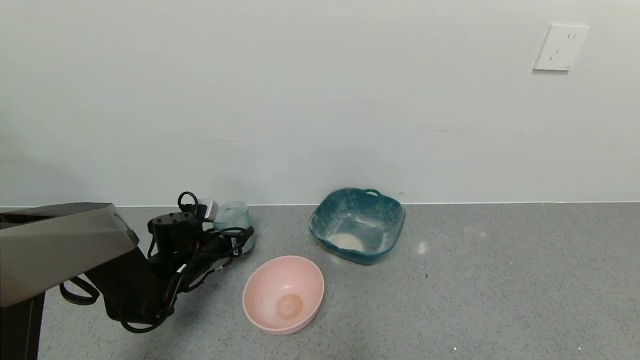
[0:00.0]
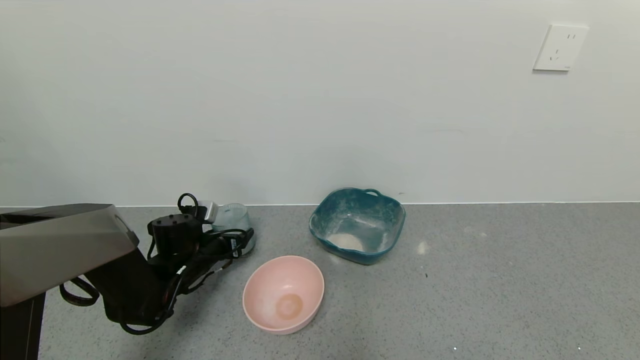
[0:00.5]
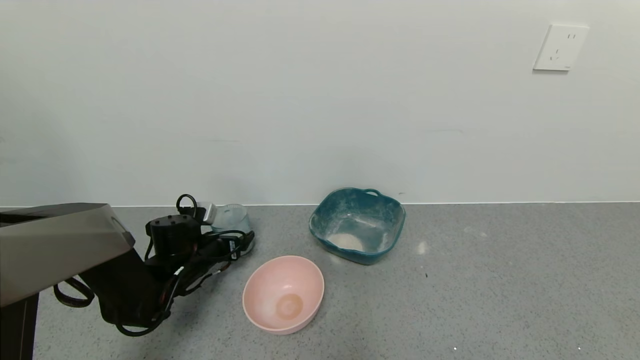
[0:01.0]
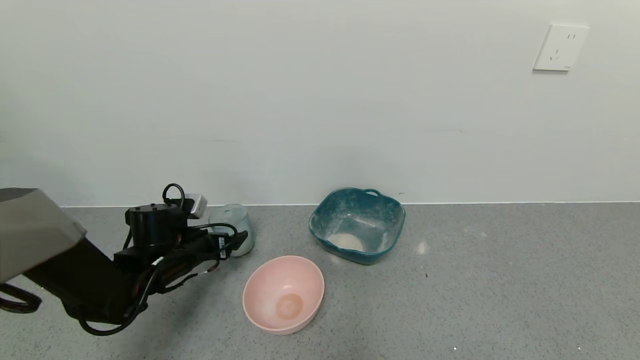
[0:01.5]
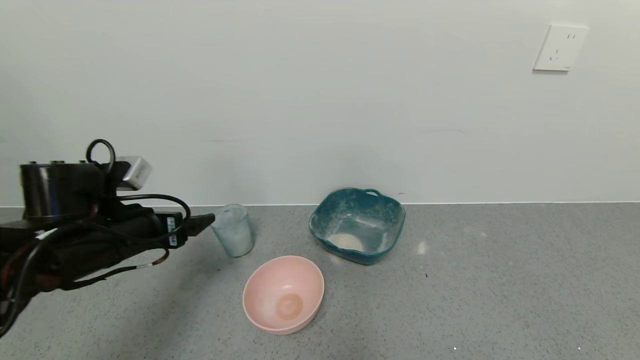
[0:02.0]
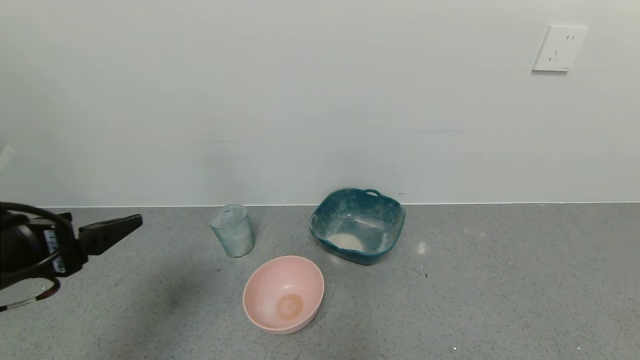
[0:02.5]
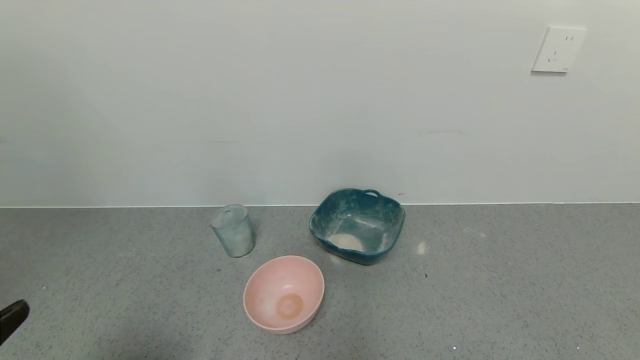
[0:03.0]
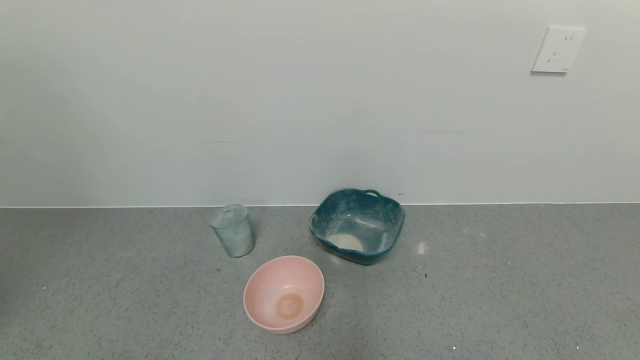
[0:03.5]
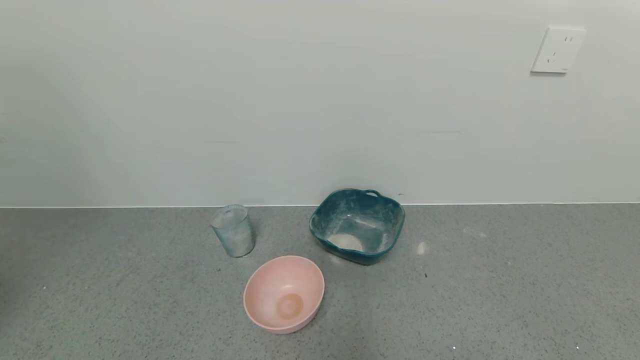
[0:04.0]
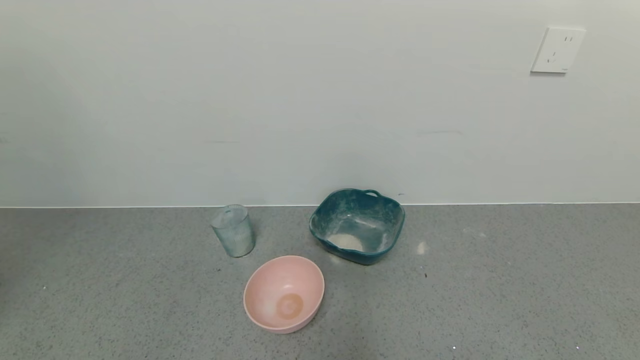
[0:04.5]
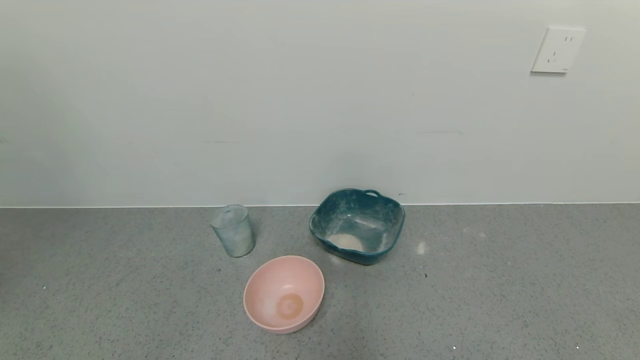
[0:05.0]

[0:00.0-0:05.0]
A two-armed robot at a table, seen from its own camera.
Task of the whole recording: use a gripper to pick up the cup and pour the powder into a bowl or tray.
0:00.0 to 0:02.5: The left gripper travels backward and upward by about 30 cm, and opens its fingers.
0:02.5 to 0:05.0: The left gripper moves backward and downward, about 25 cm.
